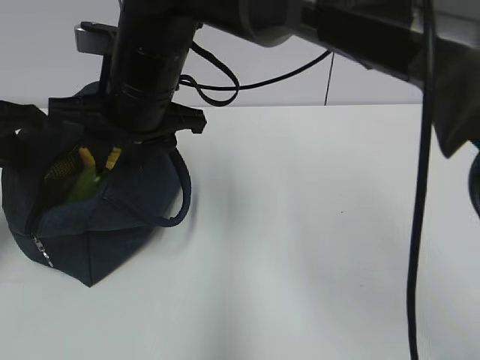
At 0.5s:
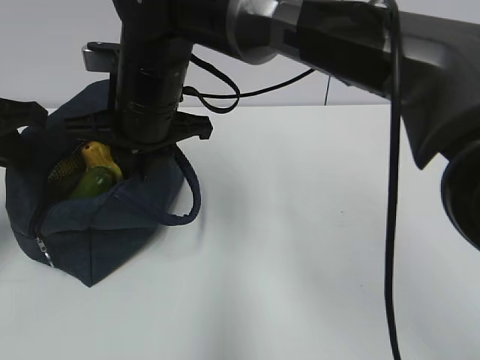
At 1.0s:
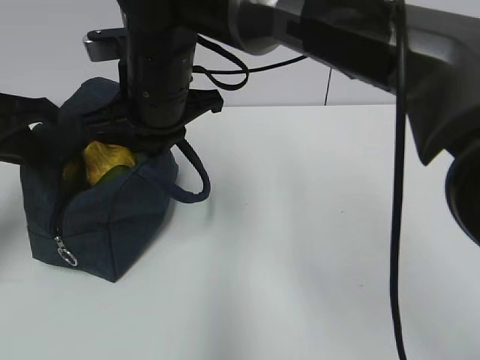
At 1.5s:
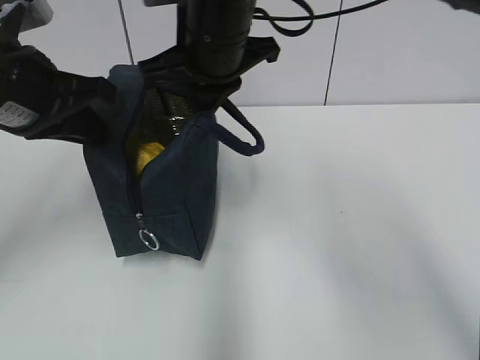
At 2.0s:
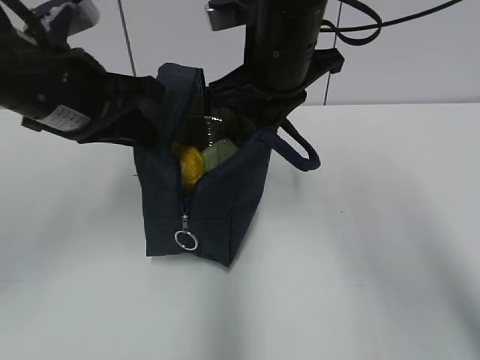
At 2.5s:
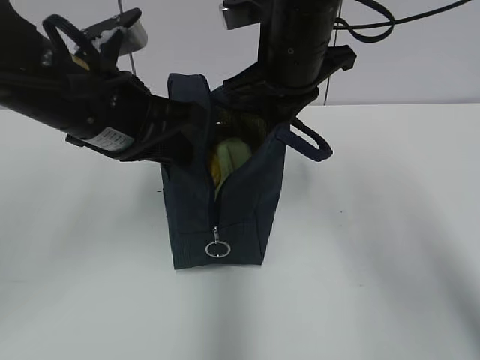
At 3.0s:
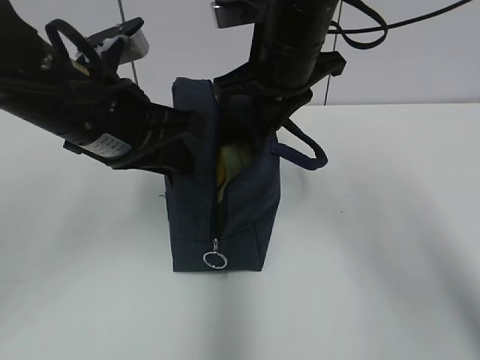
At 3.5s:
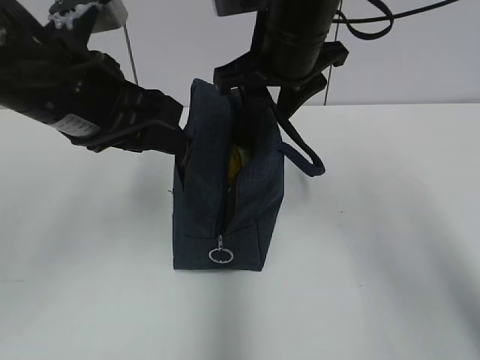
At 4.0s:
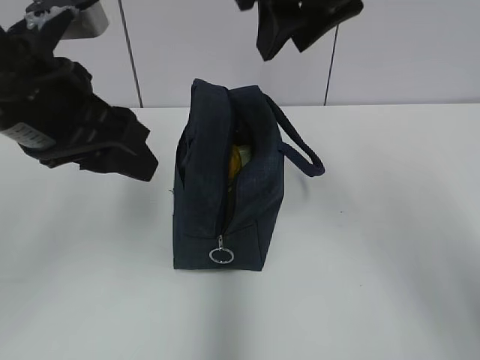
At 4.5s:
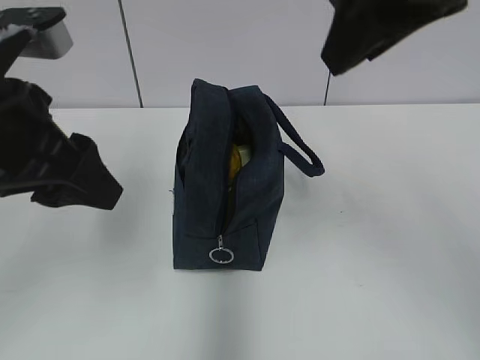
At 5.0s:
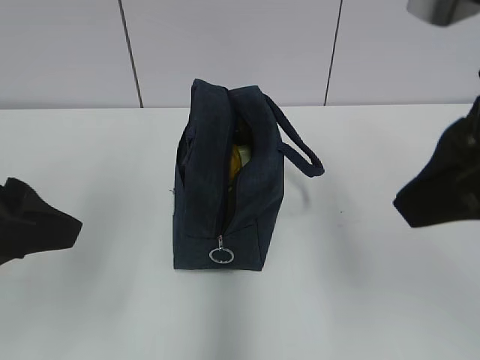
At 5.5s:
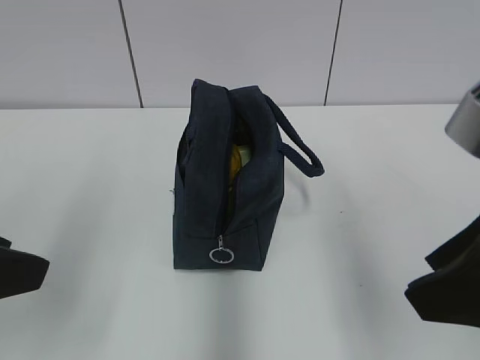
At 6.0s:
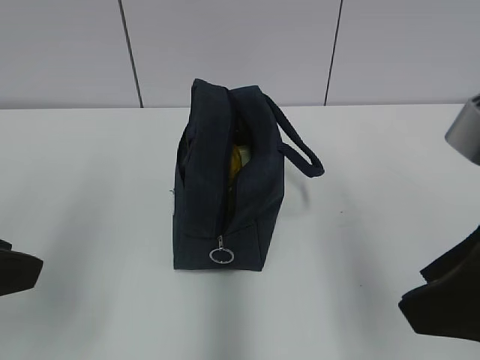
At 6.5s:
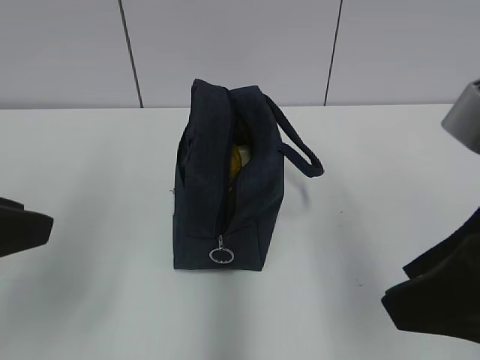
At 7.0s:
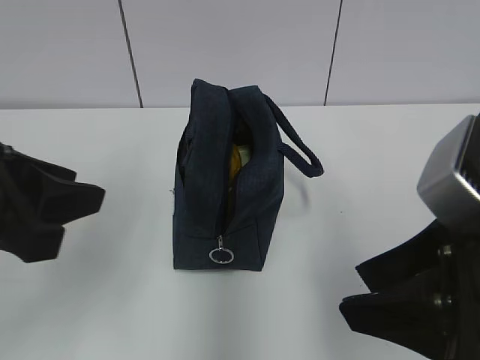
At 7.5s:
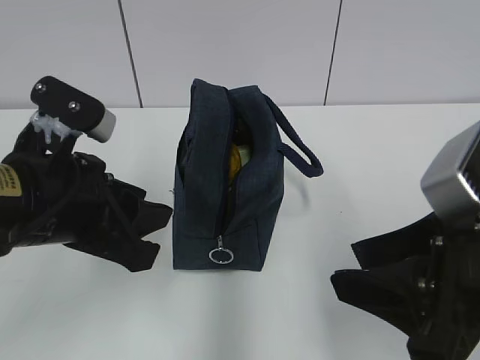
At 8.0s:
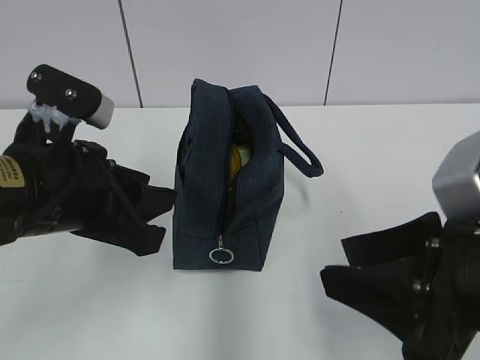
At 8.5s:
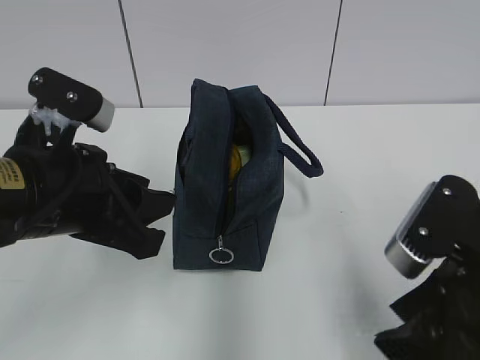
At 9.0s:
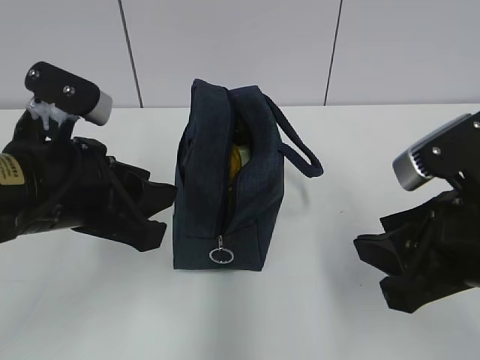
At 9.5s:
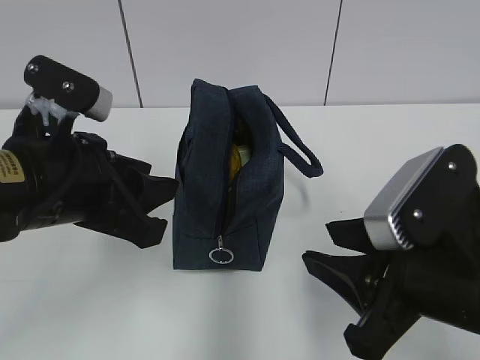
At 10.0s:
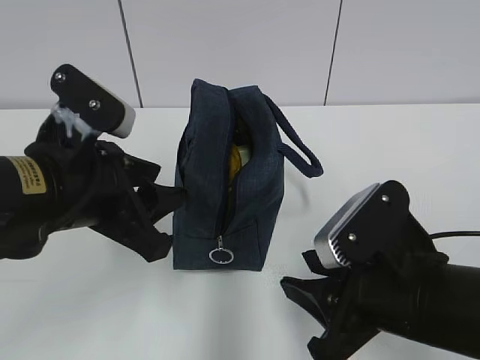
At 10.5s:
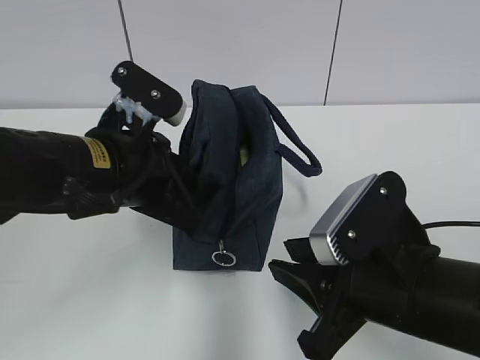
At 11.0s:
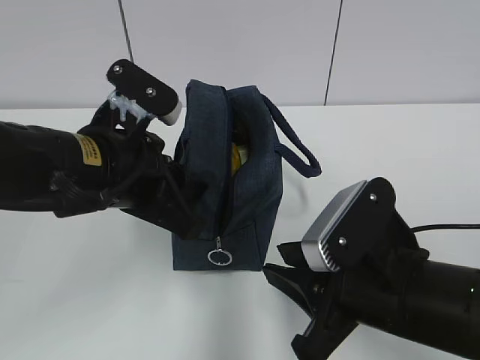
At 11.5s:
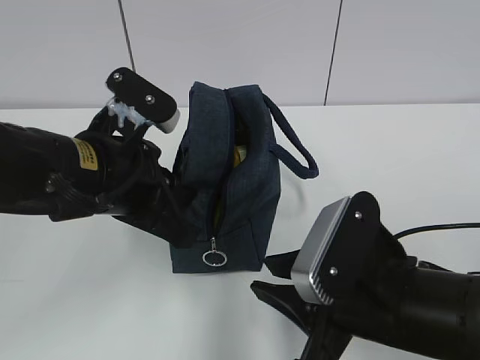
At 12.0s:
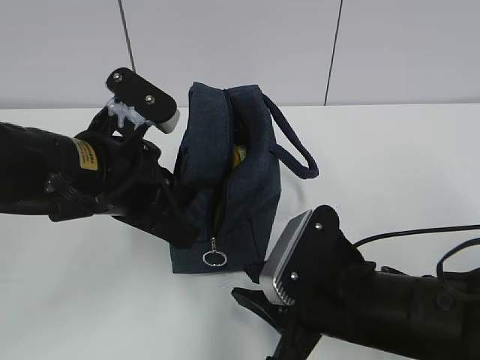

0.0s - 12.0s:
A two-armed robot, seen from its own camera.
Step, 1.0s - 3.0s: Move the lunch bag to the right.
0.0s - 2.0s: Both grippers move to the right, about 10 cm. The right gripper closes up.
2.0s - 4.0s: The right gripper travels upward by roughly 10 cm, and opens. Meanwhile the left gripper opens.
4.0s - 6.0s: The left gripper shifts approximately 15 cm backward and to the left. The right gripper heads backward, downward and to the right, covering approximately 25 cm.
6.0s - 8.0s: The left gripper travels to the right and forward by about 10 cm. The right gripper goes some 5 cm downward.
8.0s - 10.0s: The right gripper travels downward by about 10 cm.
10.0s - 12.0s: The left gripper closes up; the right gripper changes place by approximately 5 cm.

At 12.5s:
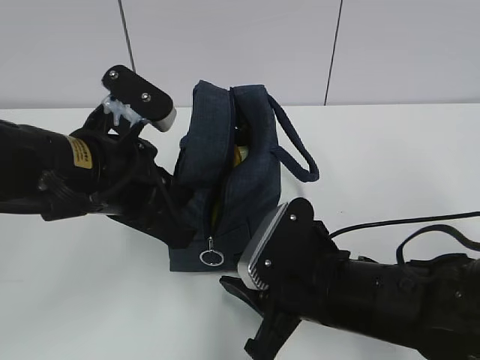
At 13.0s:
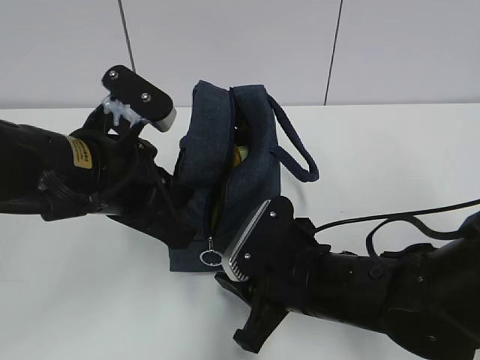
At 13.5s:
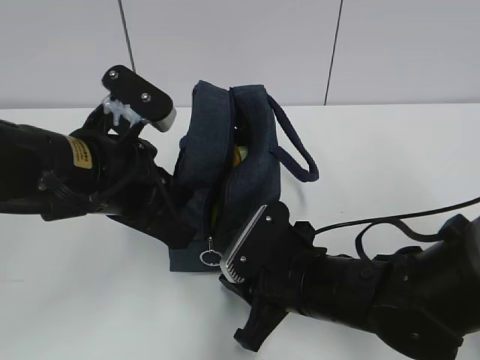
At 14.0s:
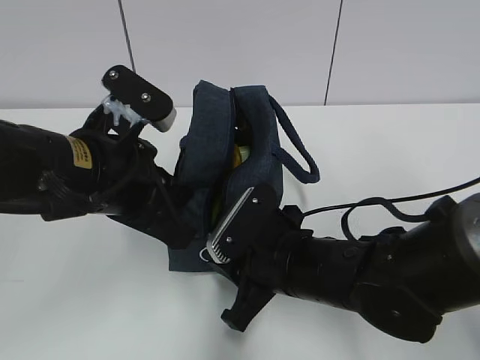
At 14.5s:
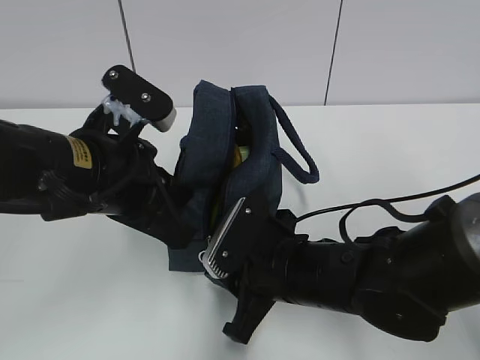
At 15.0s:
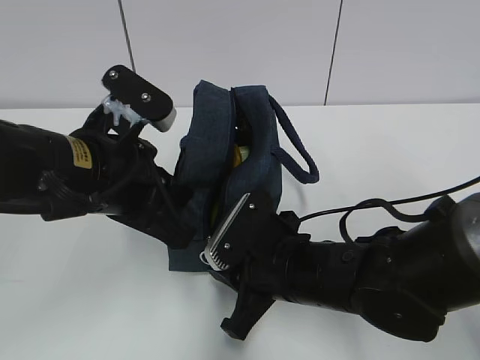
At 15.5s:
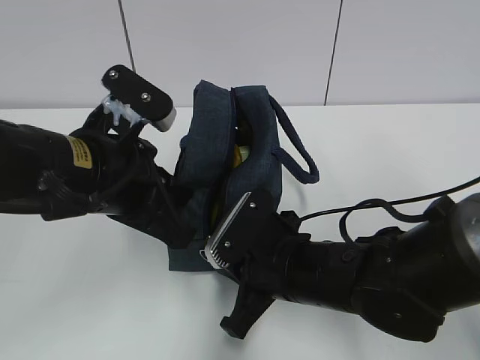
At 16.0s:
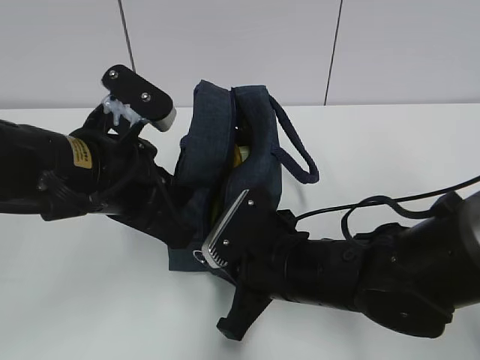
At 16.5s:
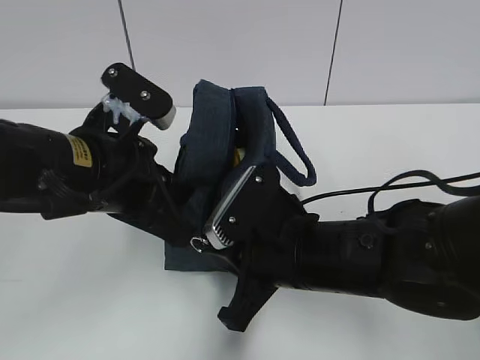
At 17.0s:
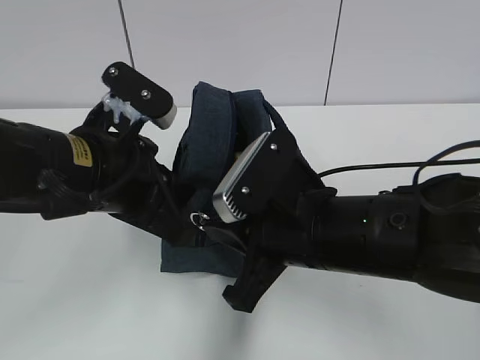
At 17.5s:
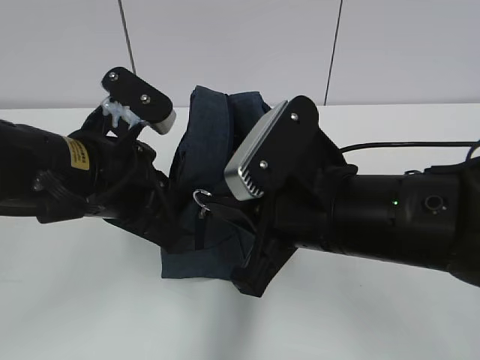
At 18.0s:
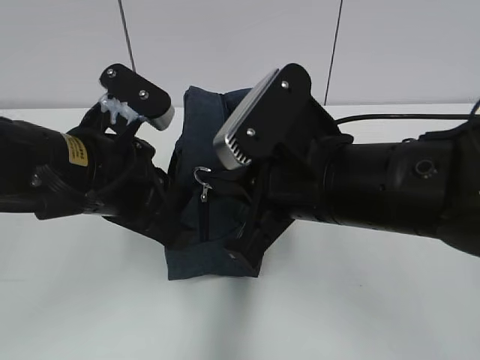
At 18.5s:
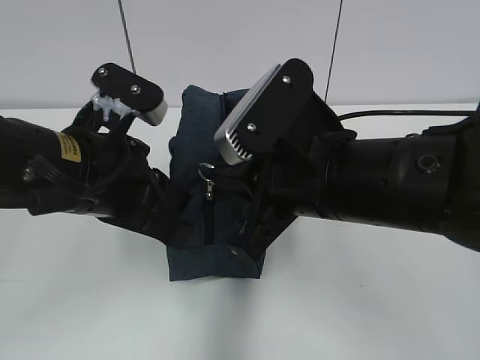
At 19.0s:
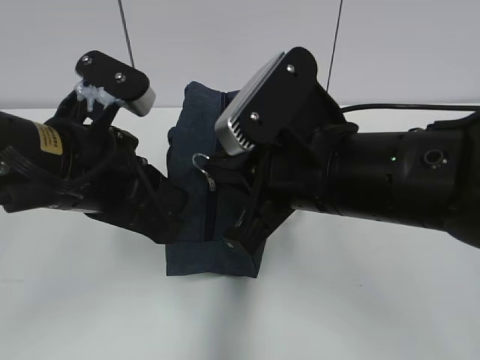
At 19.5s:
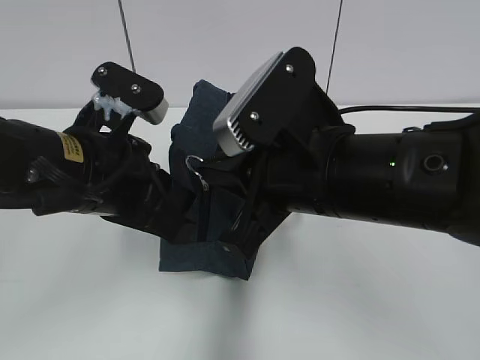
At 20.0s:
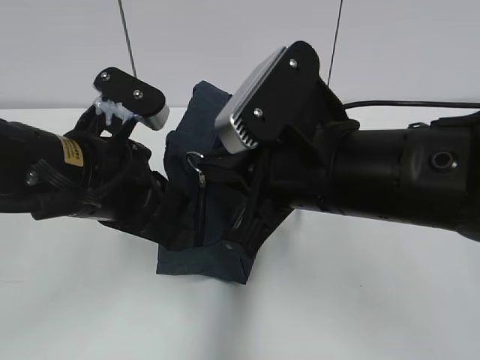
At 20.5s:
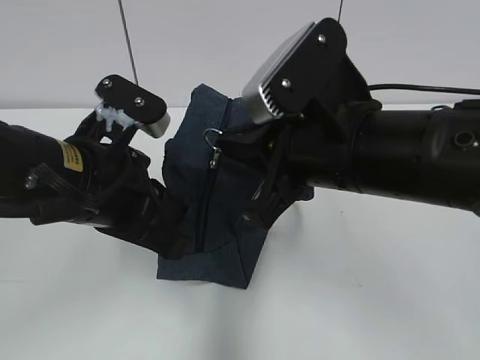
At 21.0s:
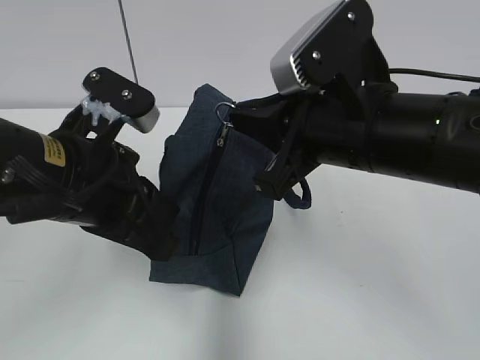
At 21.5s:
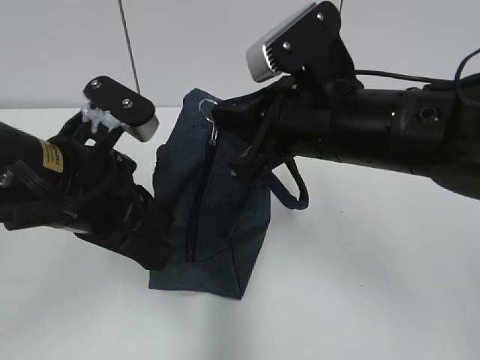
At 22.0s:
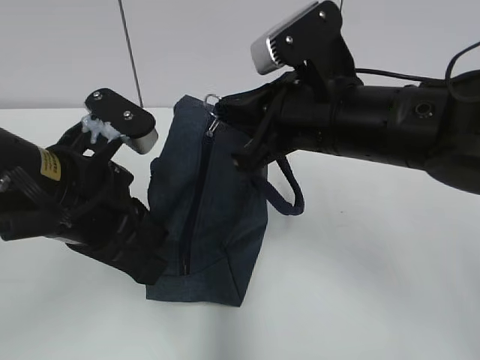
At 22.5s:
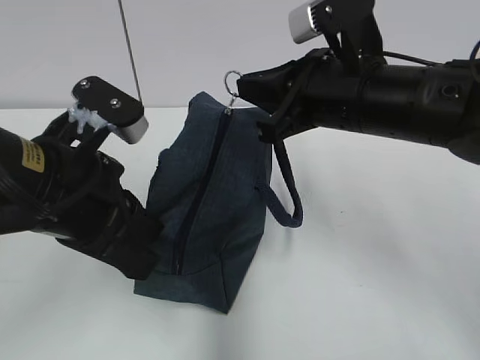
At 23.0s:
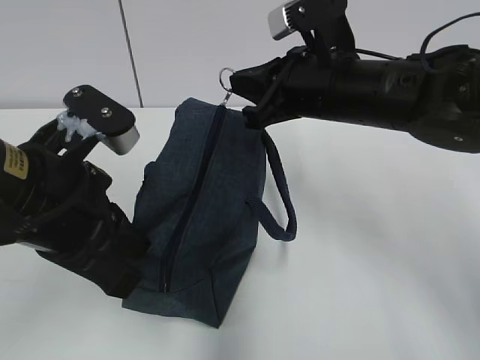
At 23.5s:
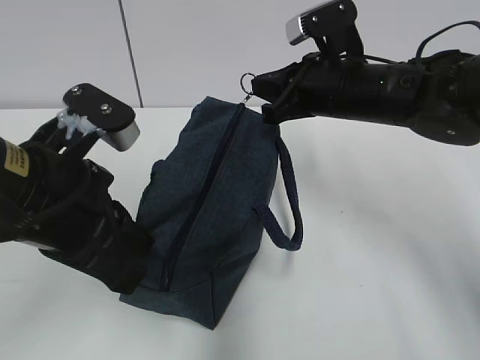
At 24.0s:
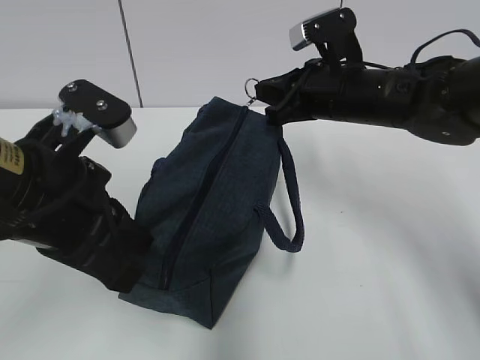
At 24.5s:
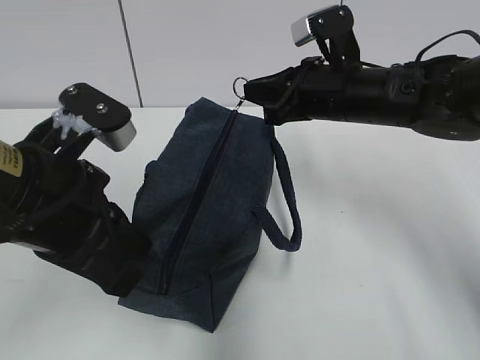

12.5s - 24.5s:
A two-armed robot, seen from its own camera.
Step, 12.5s - 24.5s: Grab the lunch bag with your left hand.
12.5s - 14.5s: There are only small adjustments of the grippers.
14.5s - 16.5s: The right gripper closes.
16.5s - 18.5s: The right gripper travels upward by about 10 cm.
18.5s - 20.5s: The grippers stay close to where they were, moving slightly.
20.5s - 22.5s: The right gripper travels forward by roughly 5 cm.
22.5s - 24.5s: The right gripper shifts about 10 cm forward.

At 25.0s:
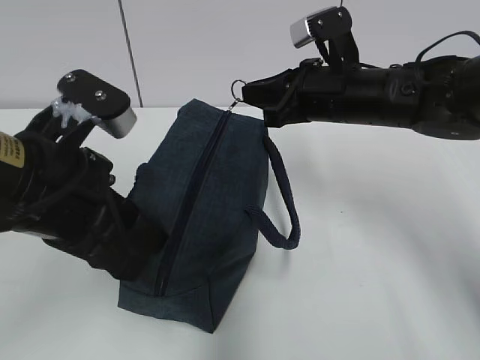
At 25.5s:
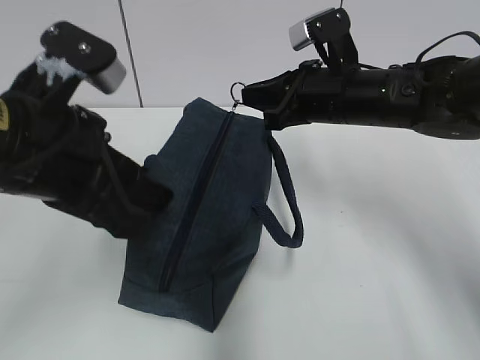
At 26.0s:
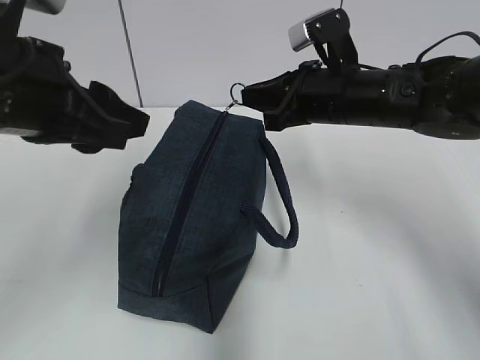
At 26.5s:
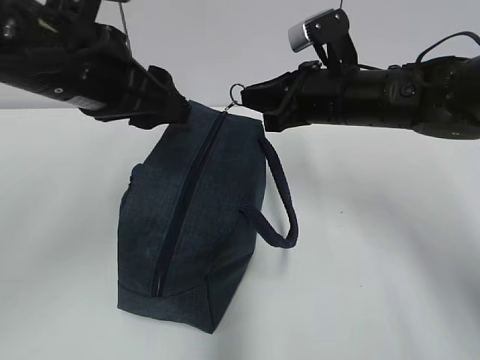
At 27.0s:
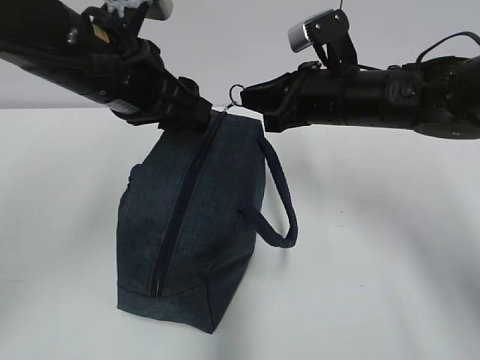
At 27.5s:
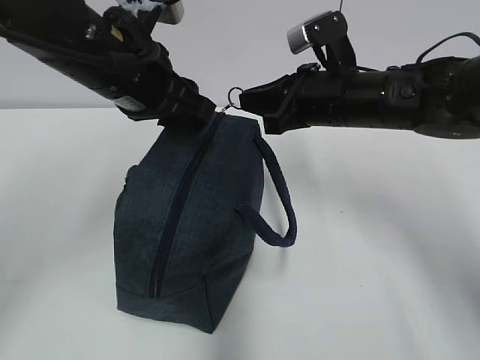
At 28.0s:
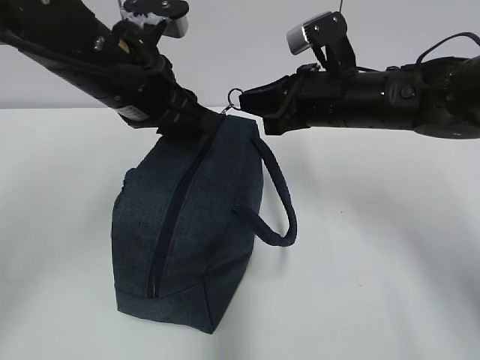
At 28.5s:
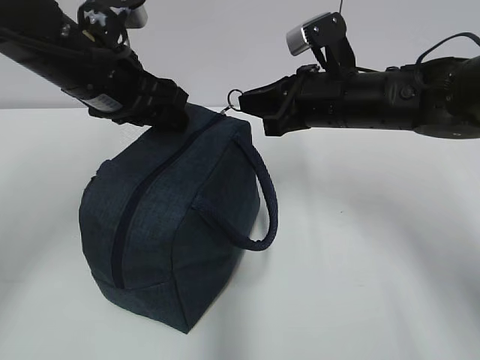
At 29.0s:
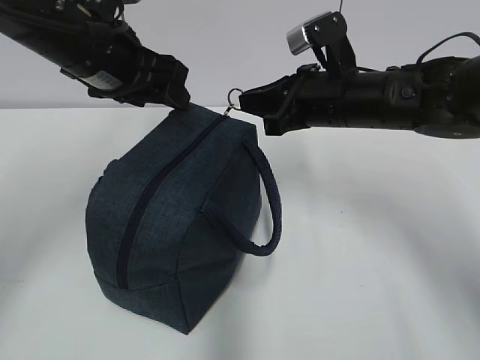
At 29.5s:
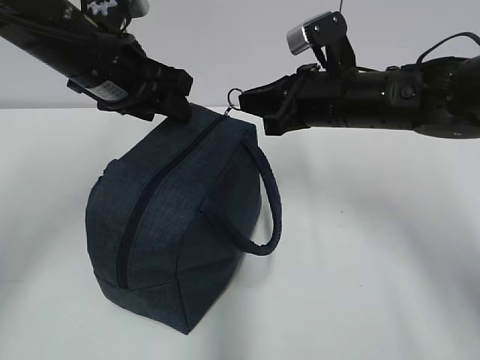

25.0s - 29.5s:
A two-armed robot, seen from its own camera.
25.0s - 27.0s: The left gripper moves forward, some 10 cm.
27.0s - 29.5s: The left gripper shifts by about 5 cm.
